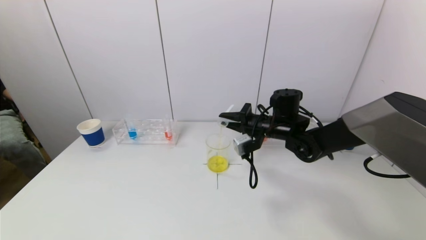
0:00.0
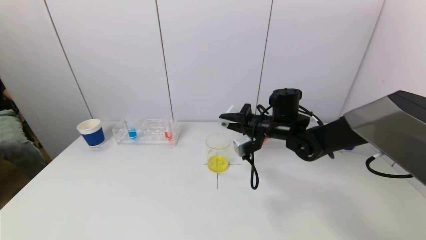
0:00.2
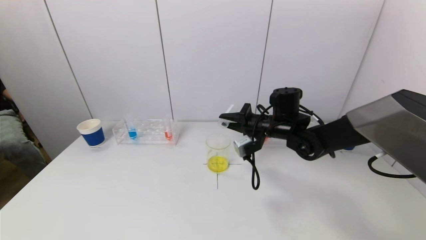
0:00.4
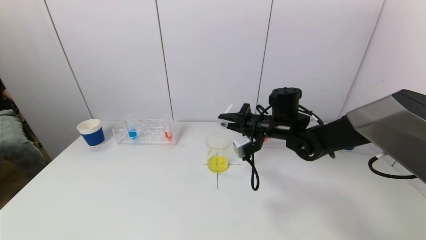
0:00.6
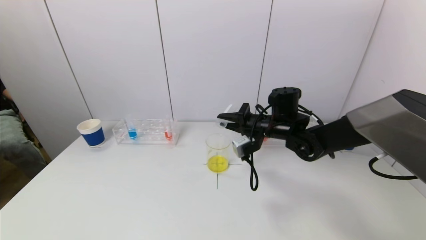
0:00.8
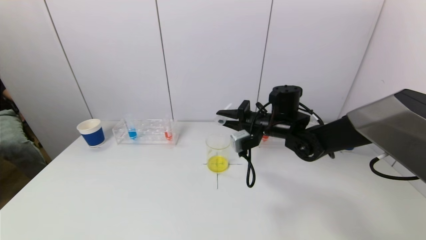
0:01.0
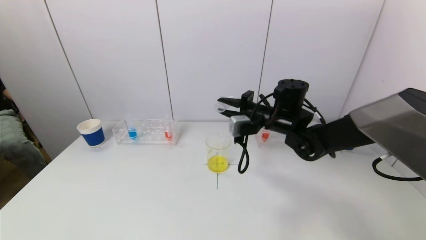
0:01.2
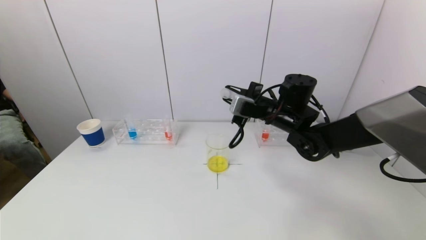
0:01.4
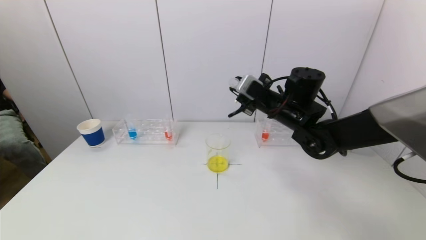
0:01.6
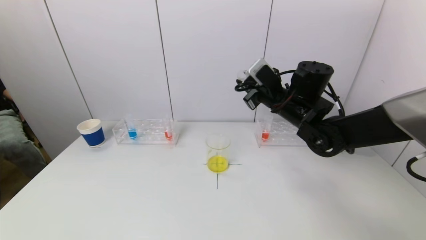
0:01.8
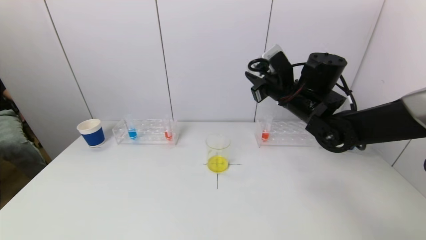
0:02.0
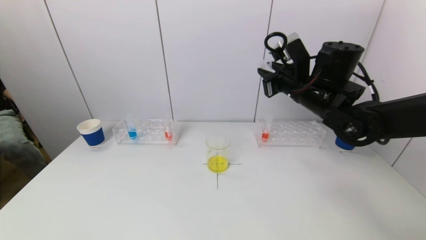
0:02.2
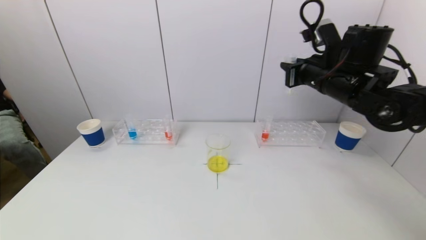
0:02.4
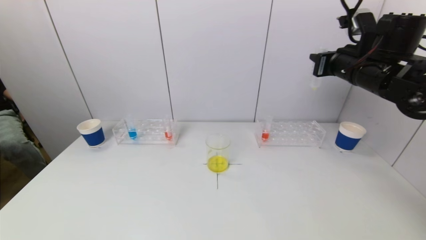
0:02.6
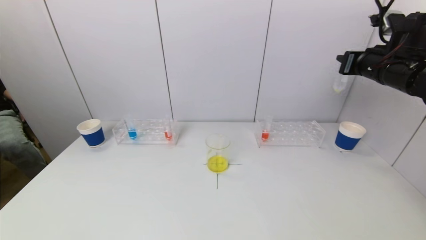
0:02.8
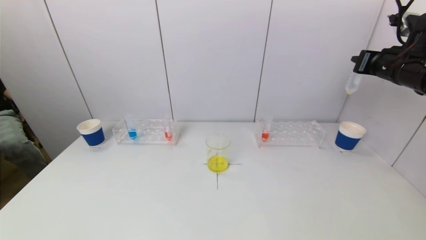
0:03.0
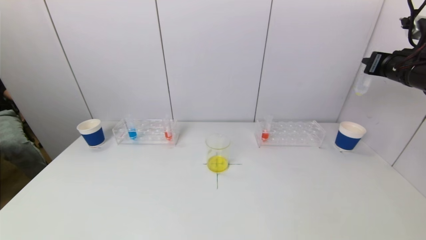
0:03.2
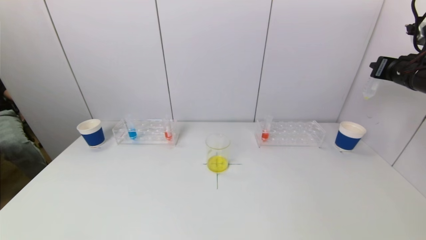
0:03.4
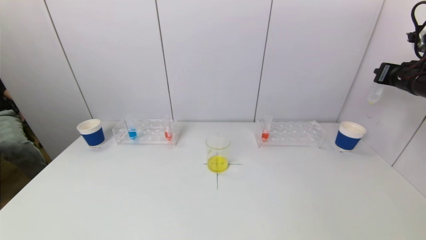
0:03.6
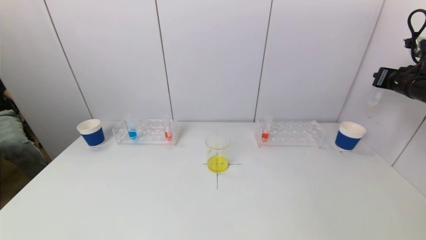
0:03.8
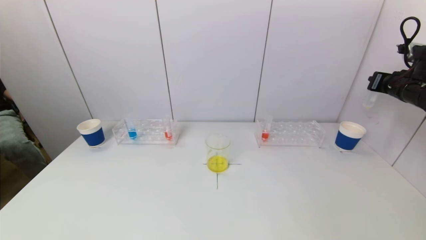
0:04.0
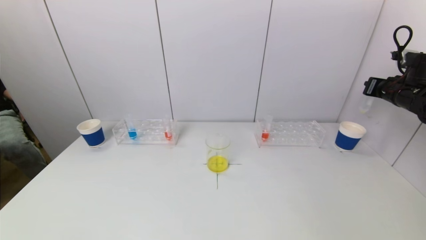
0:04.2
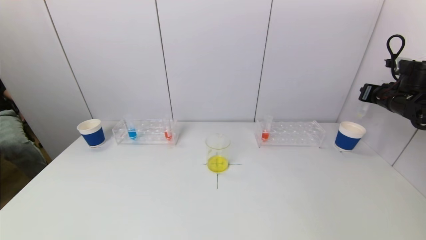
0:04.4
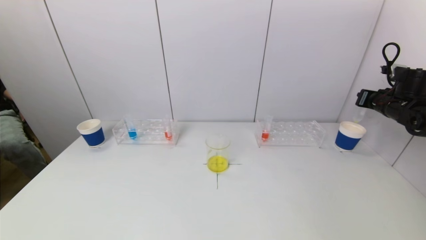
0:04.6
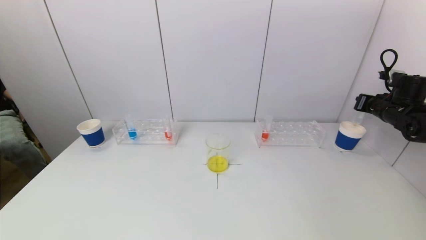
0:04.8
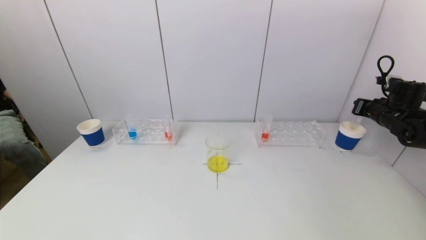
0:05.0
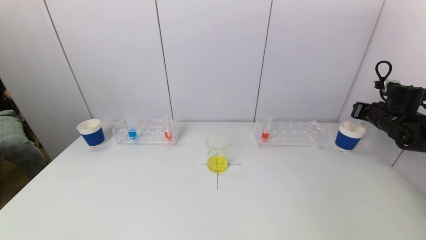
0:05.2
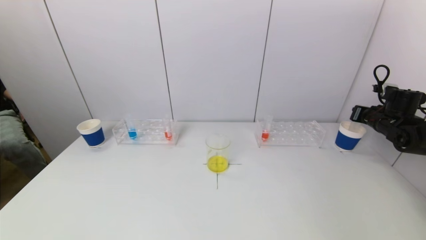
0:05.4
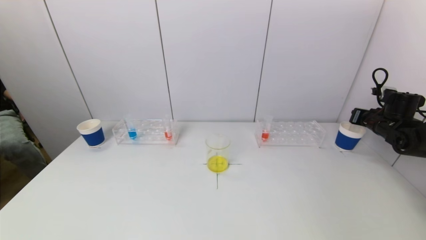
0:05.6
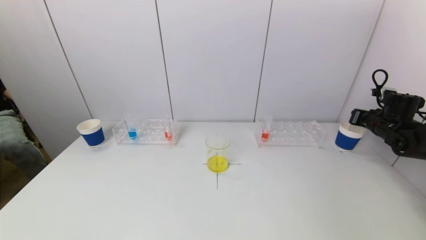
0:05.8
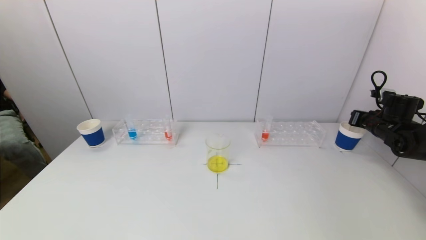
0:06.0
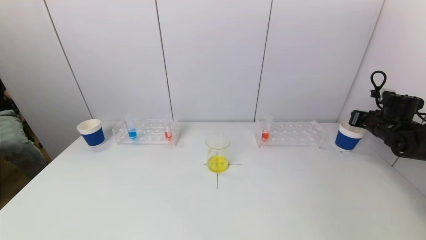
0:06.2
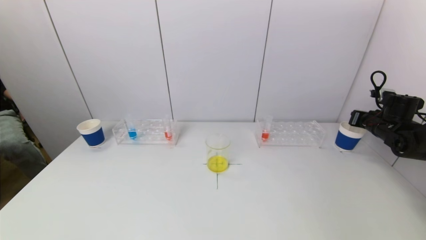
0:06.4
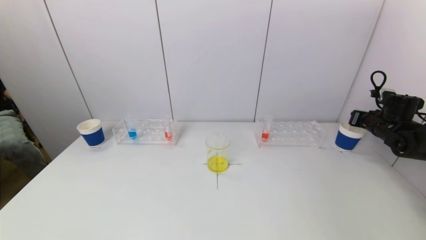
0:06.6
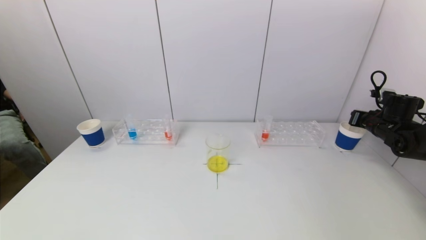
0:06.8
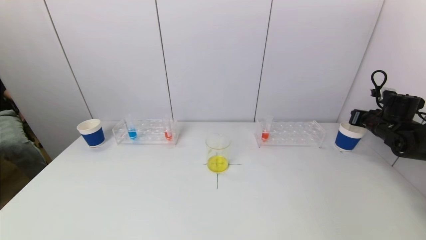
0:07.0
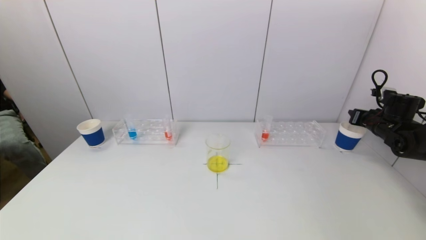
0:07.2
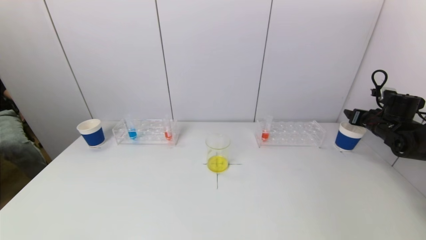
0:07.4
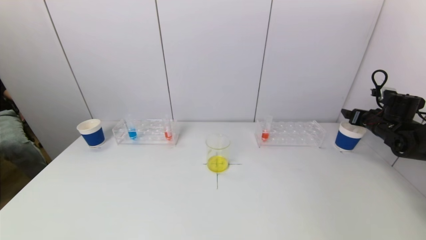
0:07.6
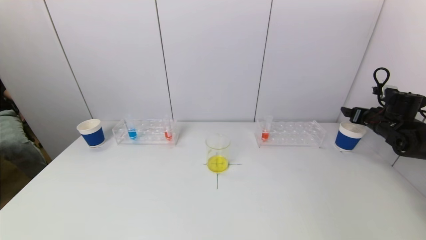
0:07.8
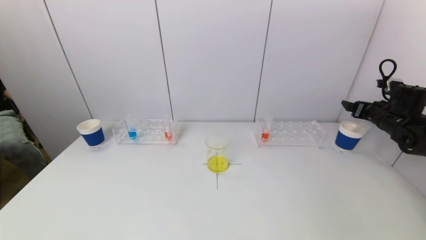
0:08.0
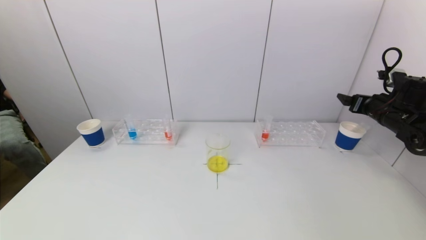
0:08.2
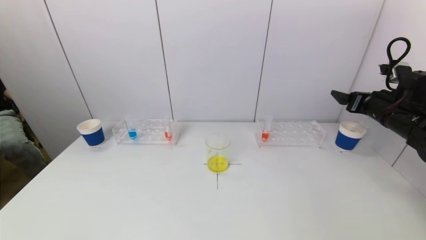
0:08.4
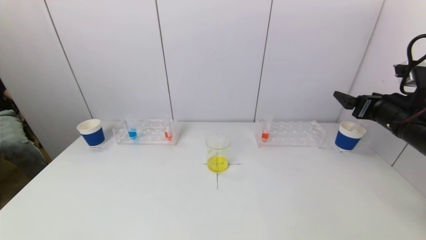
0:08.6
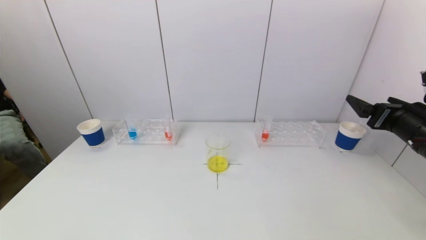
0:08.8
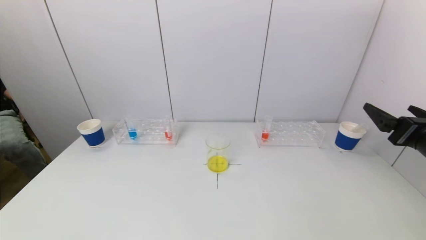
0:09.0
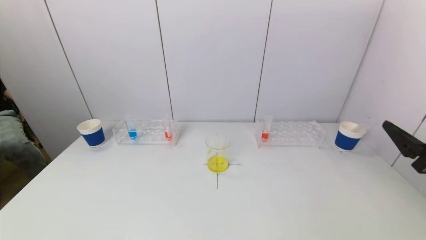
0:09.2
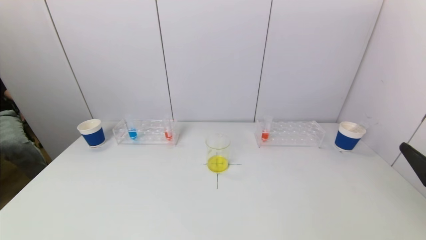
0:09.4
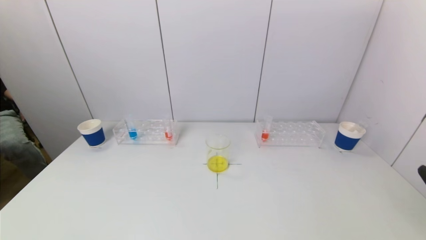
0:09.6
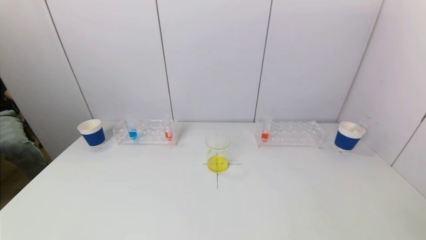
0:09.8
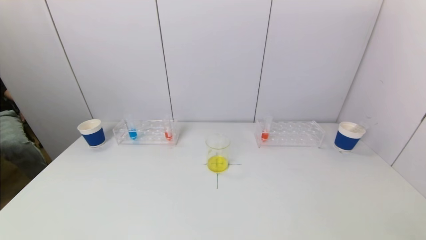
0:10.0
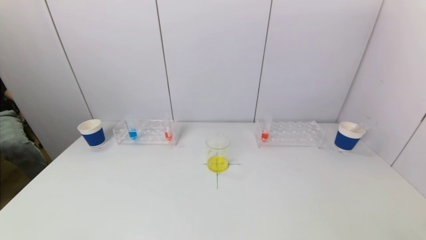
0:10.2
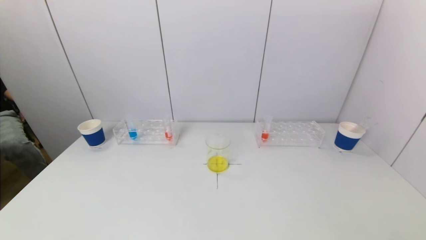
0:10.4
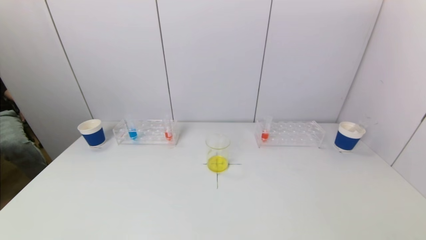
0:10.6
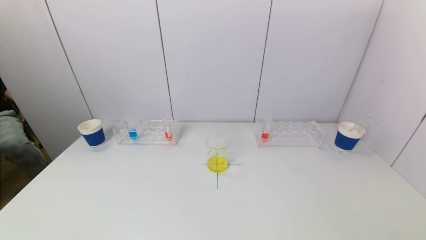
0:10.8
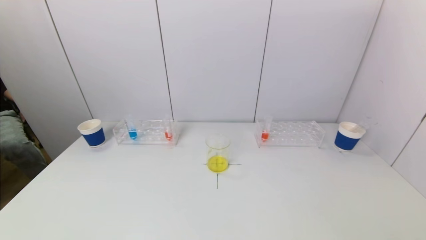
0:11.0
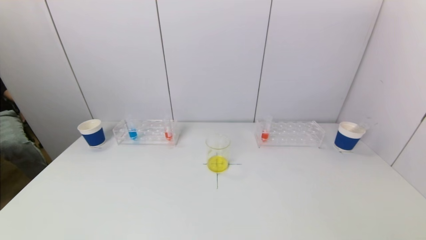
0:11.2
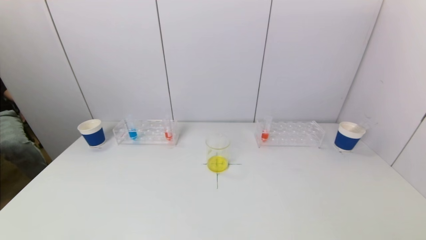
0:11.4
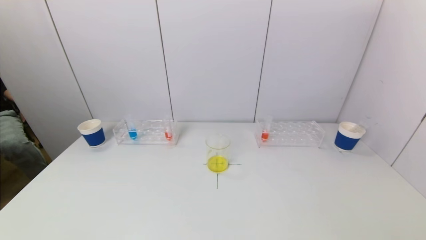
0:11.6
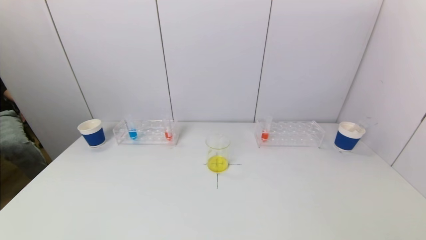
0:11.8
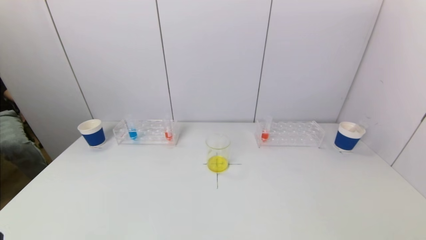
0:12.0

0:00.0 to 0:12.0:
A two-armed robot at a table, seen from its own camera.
Task of the whole recording: pick up a test tube with pigment on left test tube rack and a test tube with pigment on right test tube rack by grippers and pour them into the beaker.
Step, 0:00.4 to 0:07.4: Place the test tube into the paper cup with the right gripper.
0:00.0 to 0:01.6: The right gripper is displaced upward by roughly 5 cm.
0:01.6 to 0:03.0: The right gripper shifts approximately 25 cm to the right and upward.
0:03.0 to 0:04.4: The right gripper goes roughly 15 cm downward, to the right and forward.
0:04.4 to 0:06.0: The right gripper goes some 10 cm downward.
0:06.0 to 0:07.6: The right gripper opens up.
0:07.6 to 0:09.0: The right gripper is displaced backward, to the left and upward by about 25 cm.
0:09.0 to 0:10.4: The right gripper moves backward and downward, approximately 25 cm.

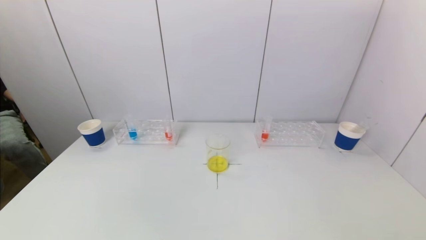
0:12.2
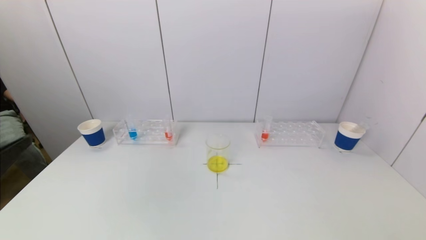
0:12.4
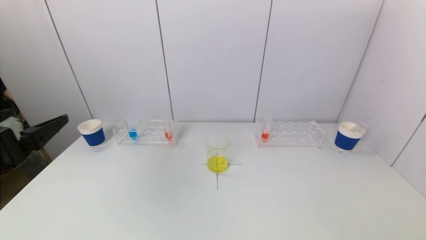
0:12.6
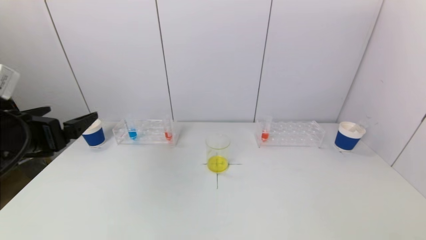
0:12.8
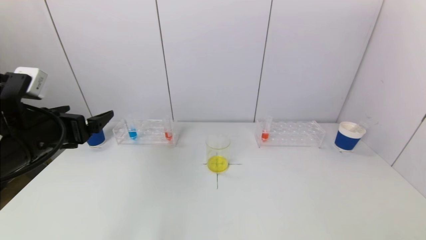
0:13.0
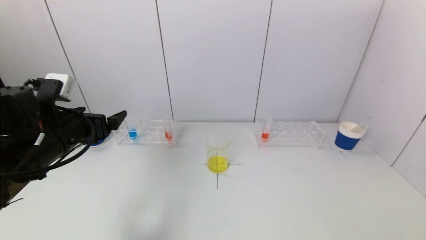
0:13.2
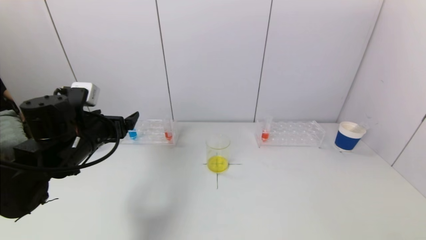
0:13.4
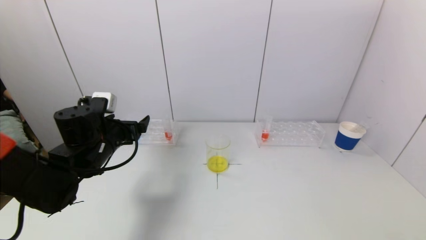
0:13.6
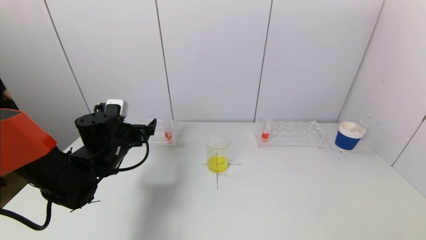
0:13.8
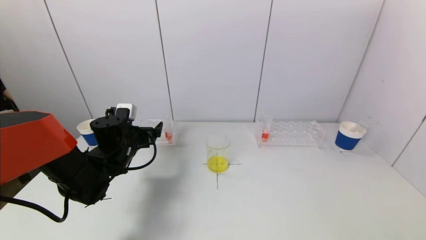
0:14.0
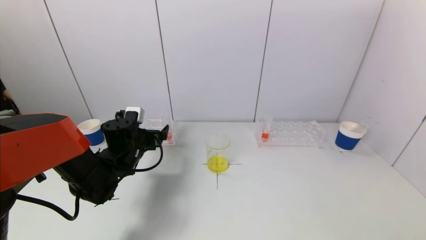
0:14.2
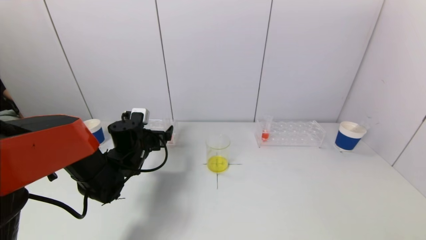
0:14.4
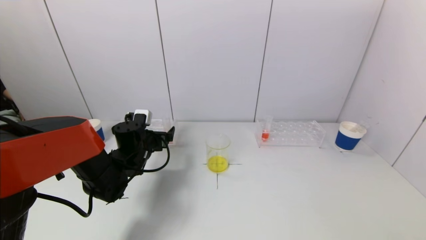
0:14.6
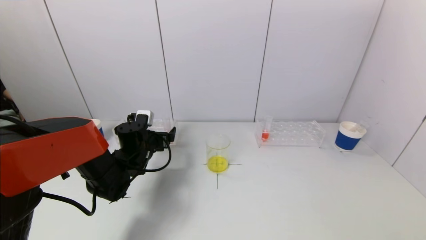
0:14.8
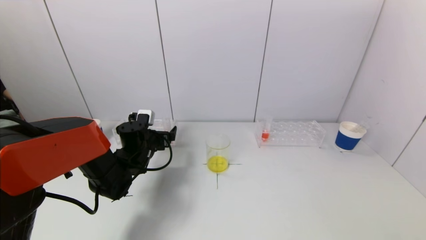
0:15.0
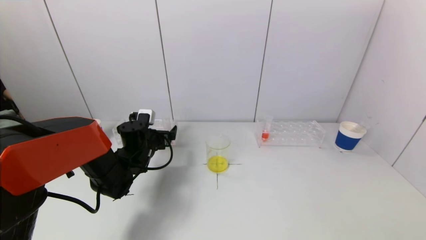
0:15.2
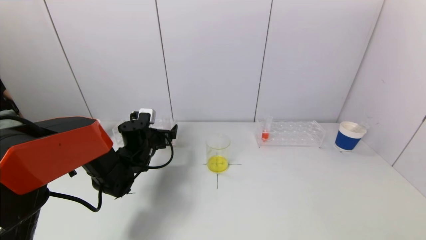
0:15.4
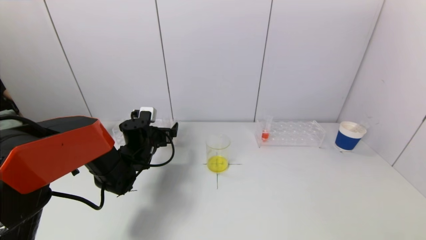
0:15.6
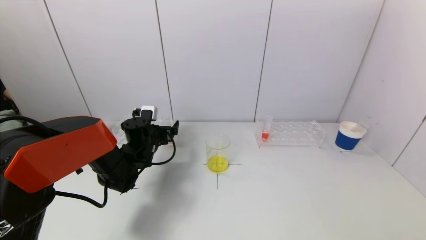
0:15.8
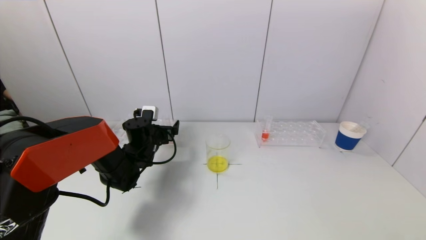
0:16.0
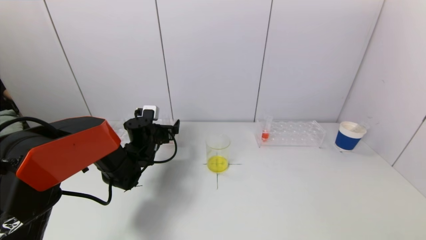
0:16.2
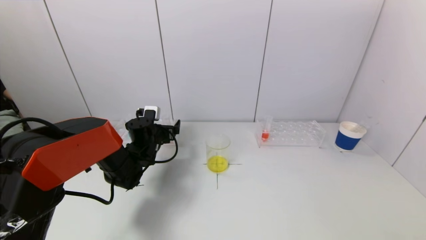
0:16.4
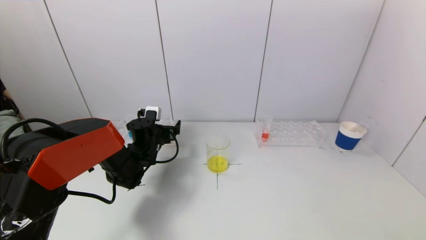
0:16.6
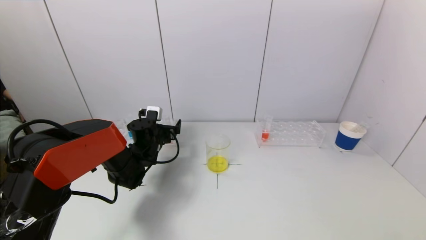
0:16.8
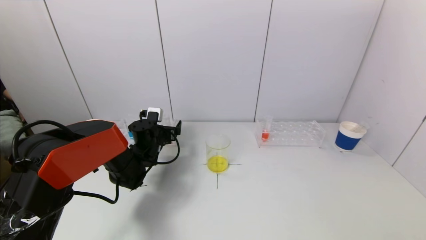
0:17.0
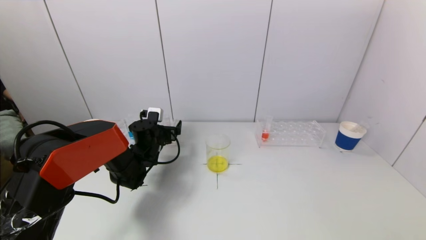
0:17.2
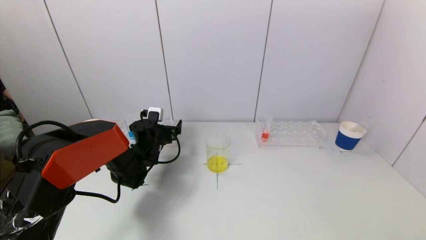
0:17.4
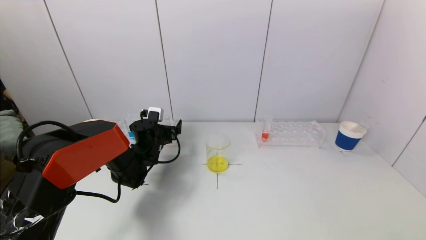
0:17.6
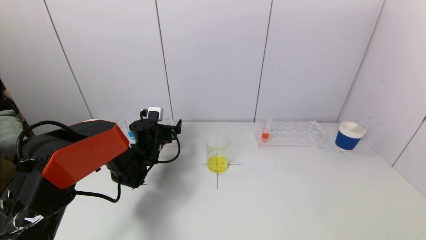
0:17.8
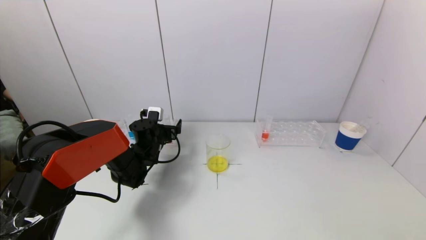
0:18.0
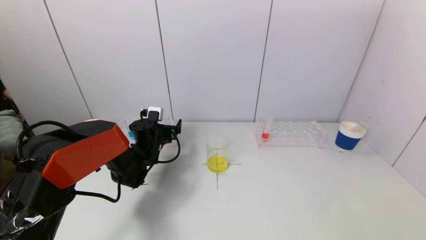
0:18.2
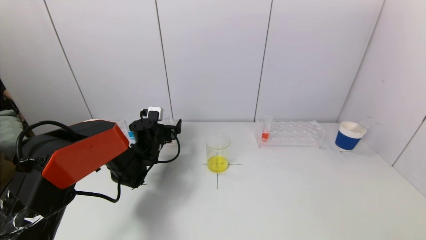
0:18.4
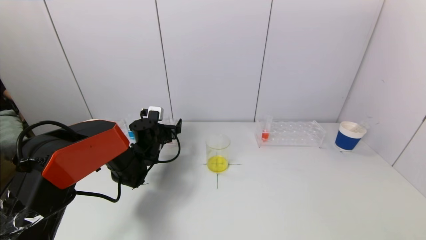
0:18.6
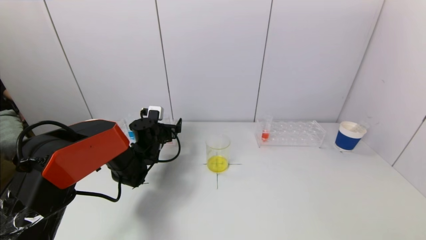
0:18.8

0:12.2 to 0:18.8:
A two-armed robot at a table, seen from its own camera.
Task of the whole recording: pick up a test tube with pigment on left test tube rack and a test tube with pigment on right test tube rack by grippers and pour them into the beaker.
0:12.2 to 0:13.8: The left gripper goes some 30 cm forward.
0:13.8 to 0:15.4: The left gripper is displaced forward by some 5 cm.
0:15.4 to 0:17.2: There are only small adjustments of the grippers.
0:17.2 to 0:18.8: Neither gripper changes place.
